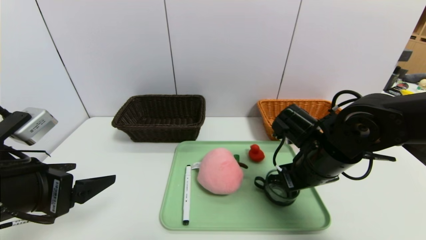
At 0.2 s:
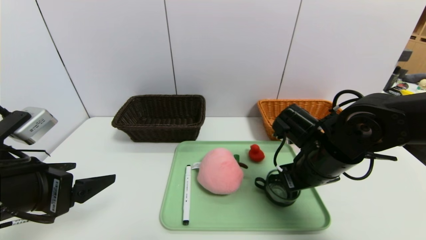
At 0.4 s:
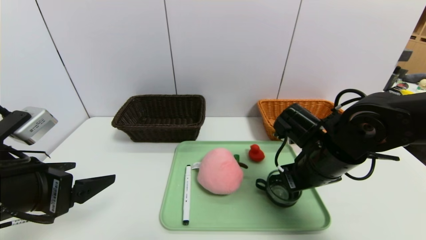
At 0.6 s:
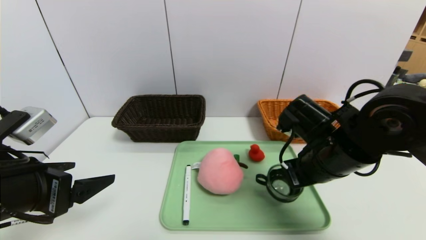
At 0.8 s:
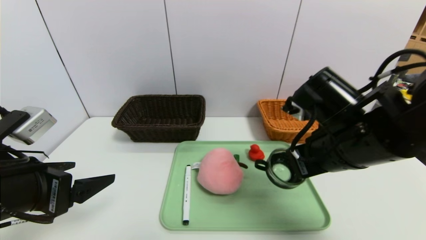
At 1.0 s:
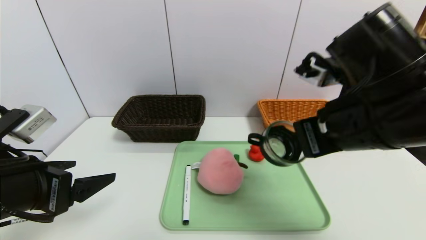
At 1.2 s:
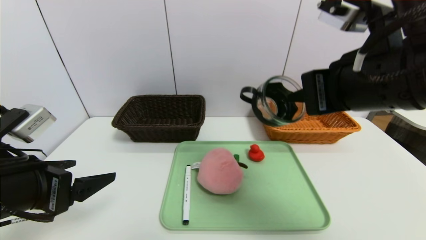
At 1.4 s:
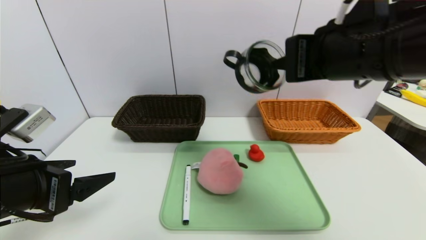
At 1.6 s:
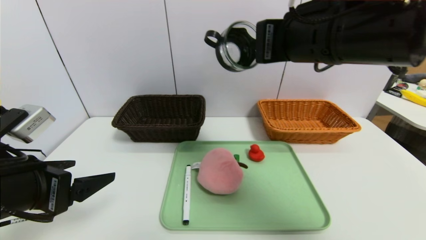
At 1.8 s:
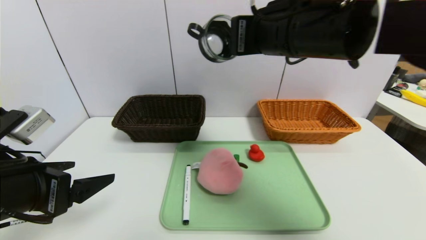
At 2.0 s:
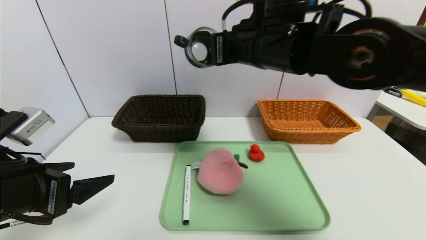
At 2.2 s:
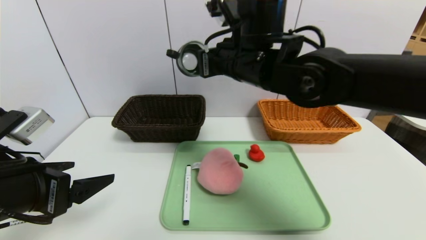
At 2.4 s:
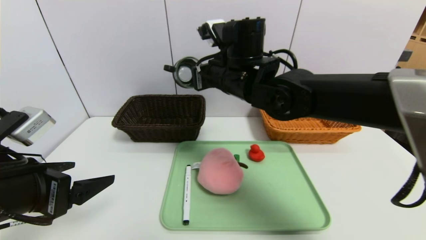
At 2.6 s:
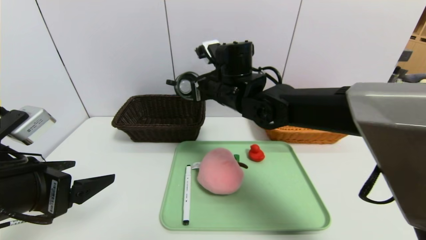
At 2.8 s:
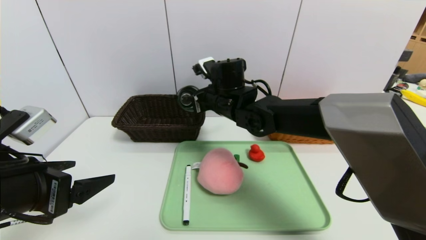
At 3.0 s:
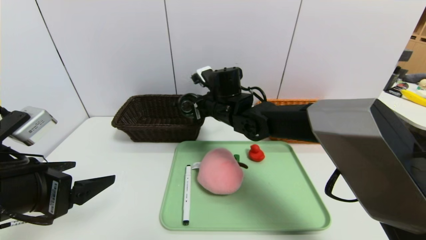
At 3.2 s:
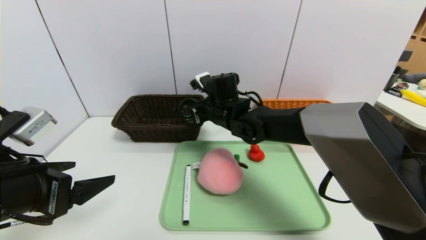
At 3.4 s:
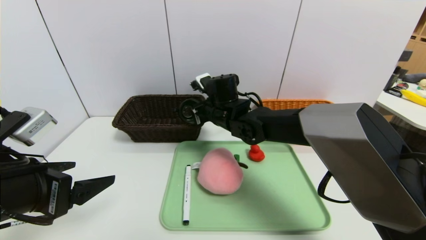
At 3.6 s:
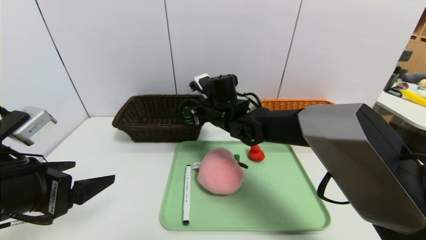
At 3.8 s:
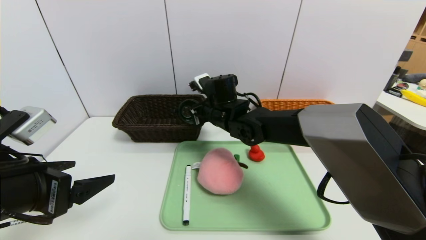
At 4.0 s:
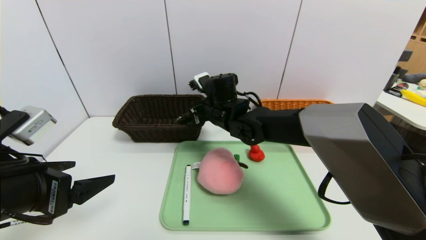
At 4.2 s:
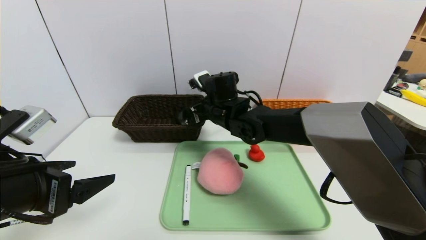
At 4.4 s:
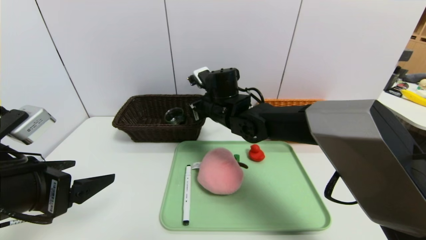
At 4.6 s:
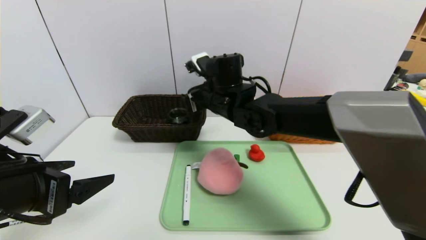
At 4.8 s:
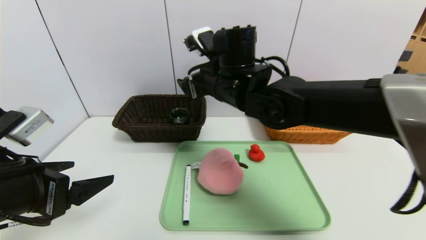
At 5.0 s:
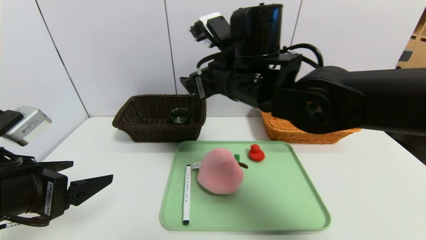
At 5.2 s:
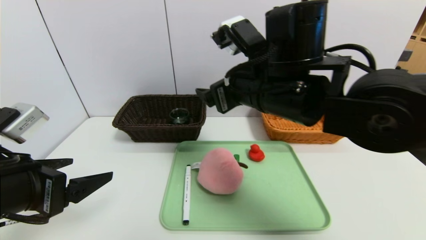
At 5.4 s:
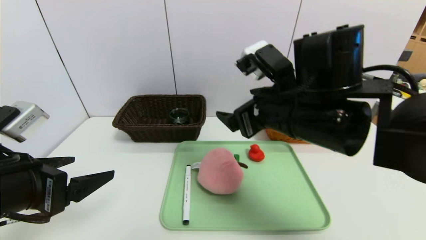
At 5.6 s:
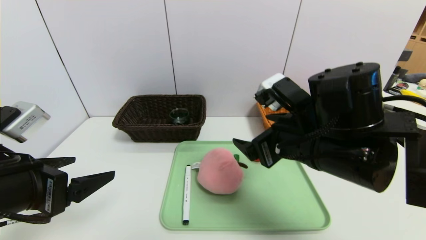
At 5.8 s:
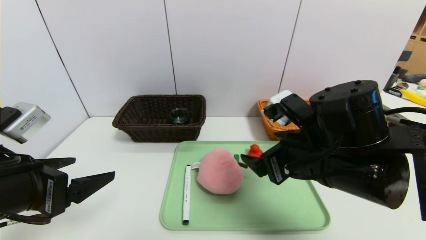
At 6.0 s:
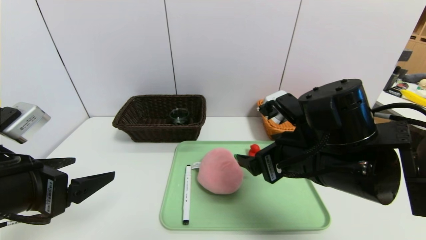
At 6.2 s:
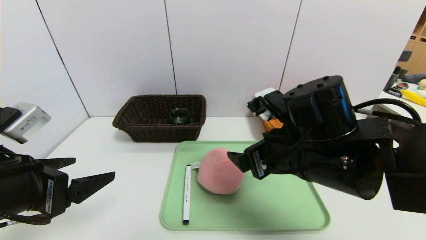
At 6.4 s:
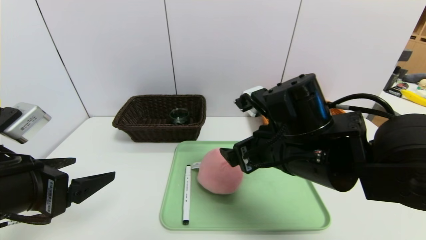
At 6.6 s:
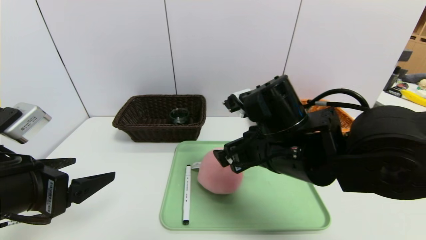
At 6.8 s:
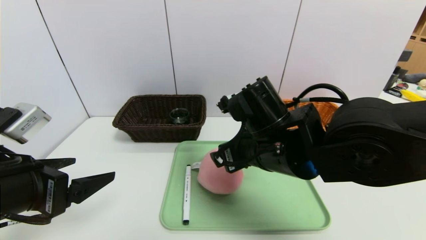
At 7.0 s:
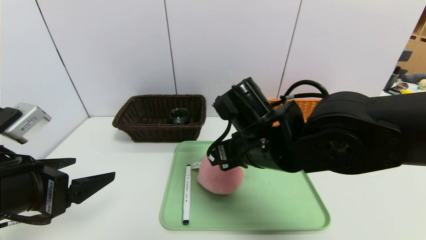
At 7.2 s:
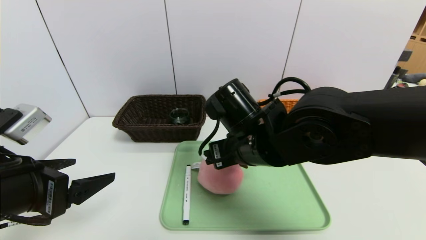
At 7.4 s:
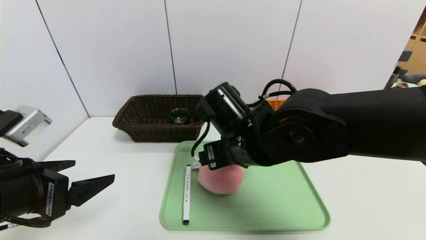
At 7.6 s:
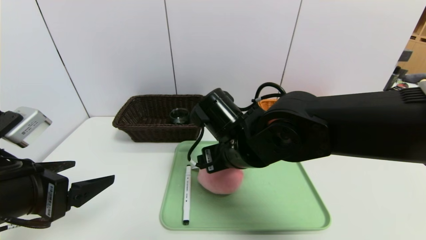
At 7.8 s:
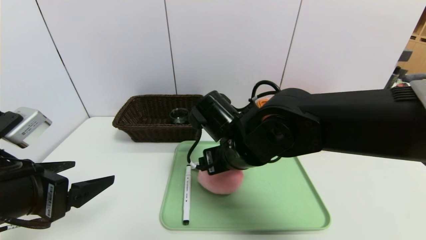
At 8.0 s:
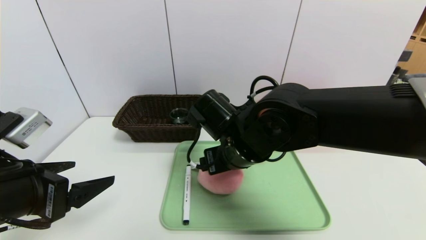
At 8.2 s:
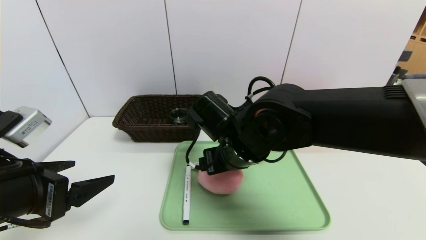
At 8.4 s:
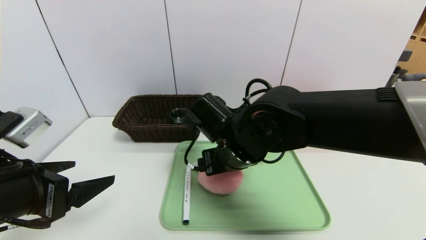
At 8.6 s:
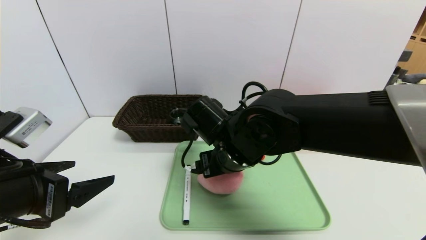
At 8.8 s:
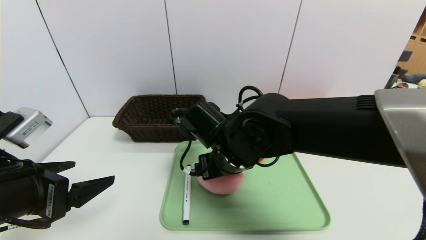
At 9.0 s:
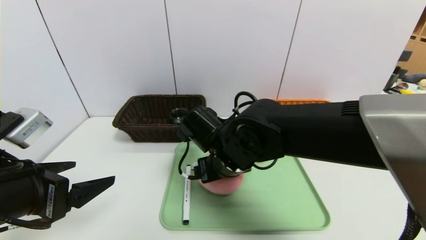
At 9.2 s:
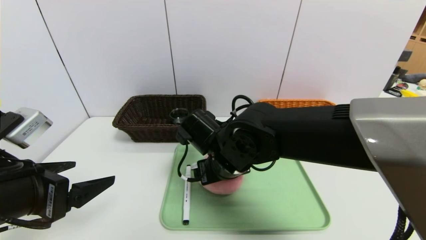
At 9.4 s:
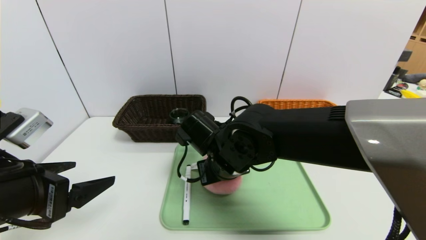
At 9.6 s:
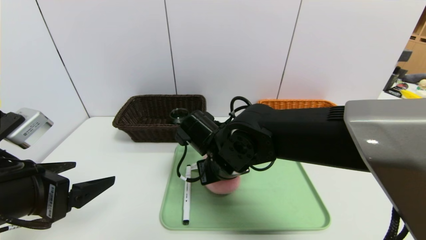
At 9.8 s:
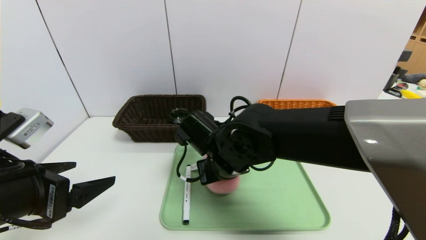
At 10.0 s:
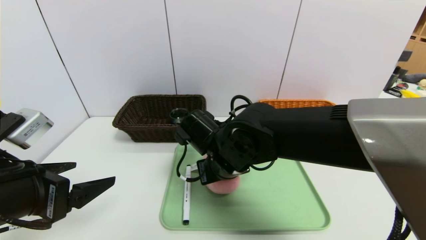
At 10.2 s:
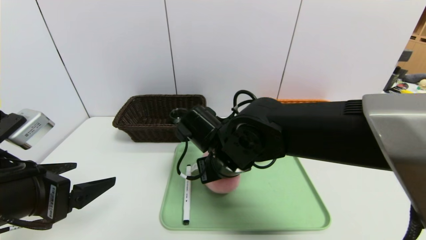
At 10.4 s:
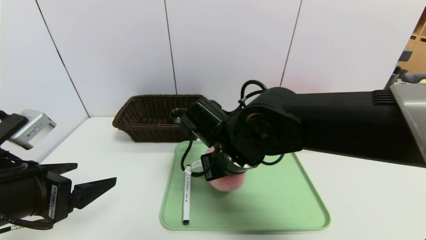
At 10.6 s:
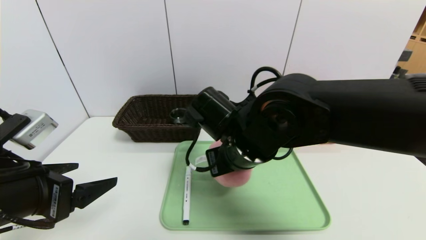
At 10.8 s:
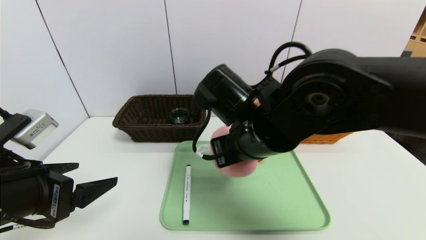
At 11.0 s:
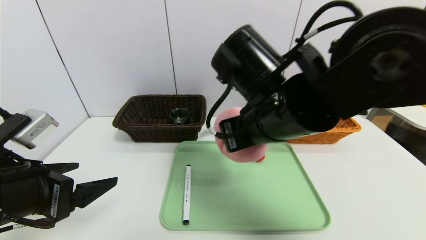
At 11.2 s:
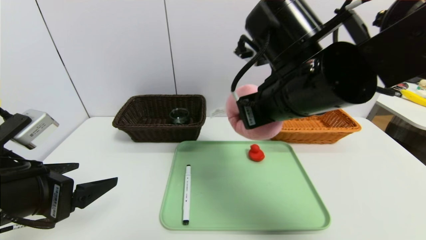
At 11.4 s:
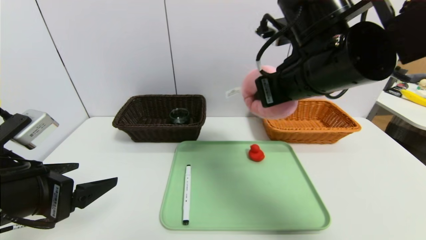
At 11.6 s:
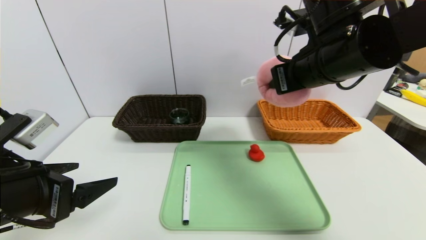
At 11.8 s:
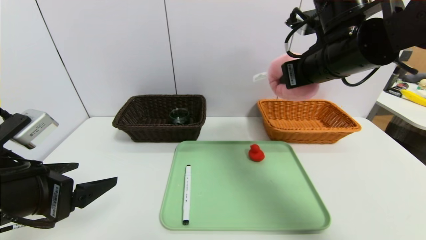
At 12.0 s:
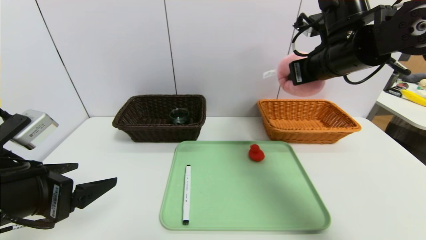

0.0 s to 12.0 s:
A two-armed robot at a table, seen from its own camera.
Task of the whole recording: place the food in the right basket with the right gripper, and place the non food items in the left basket with the left gripper.
0.0 to 1.6 s: The right gripper heads upward, covering about 20 cm.
1.6 to 3.0 s: The right gripper goes roughly 25 cm downward, forward and to the left.
3.0 to 4.4 s: The right gripper opens.
4.4 to 6.0 s: The right gripper travels backward and to the right by some 25 cm.
6.0 to 7.6 s: The right gripper travels to the left and forward by about 10 cm.
7.6 to 9.0 s: The grippers move only a little.
9.0 to 10.4 s: The right gripper closes.
10.4 to 12.0 s: The right gripper heads to the right, upward and forward, covering some 25 cm.

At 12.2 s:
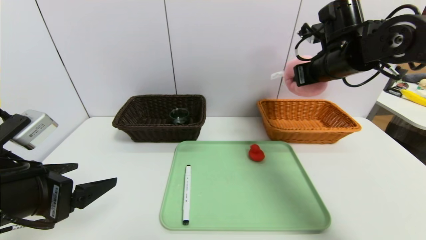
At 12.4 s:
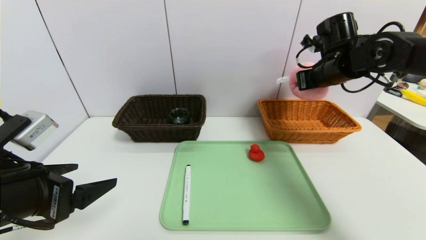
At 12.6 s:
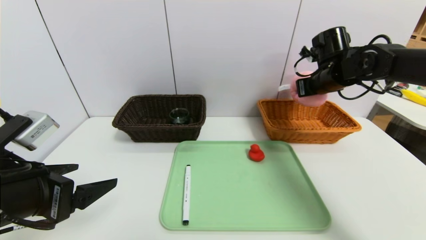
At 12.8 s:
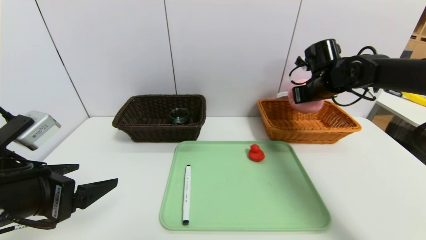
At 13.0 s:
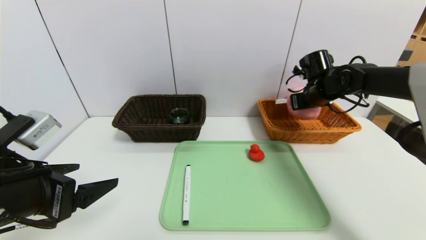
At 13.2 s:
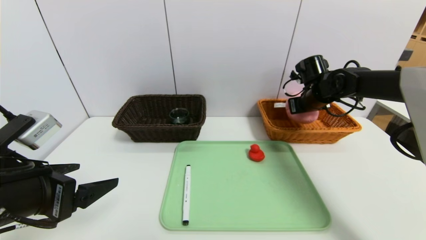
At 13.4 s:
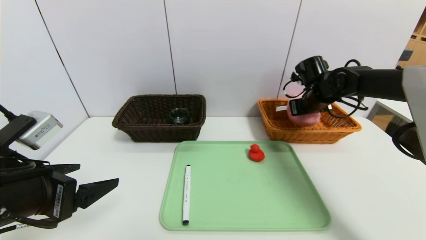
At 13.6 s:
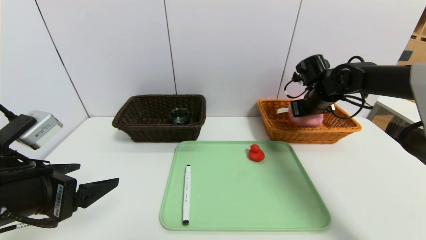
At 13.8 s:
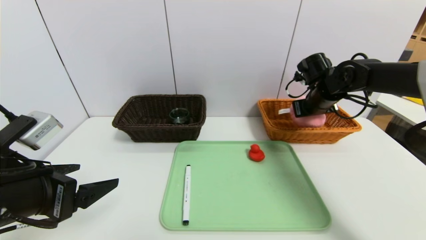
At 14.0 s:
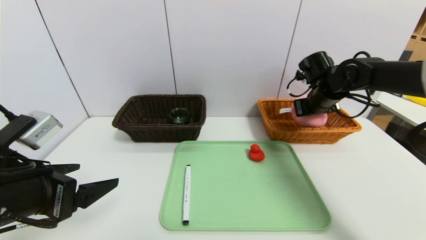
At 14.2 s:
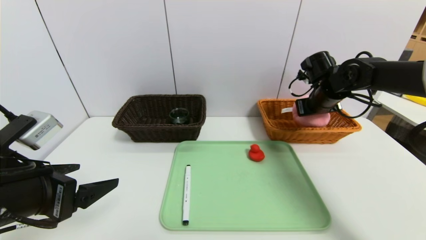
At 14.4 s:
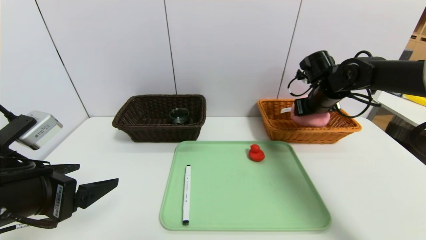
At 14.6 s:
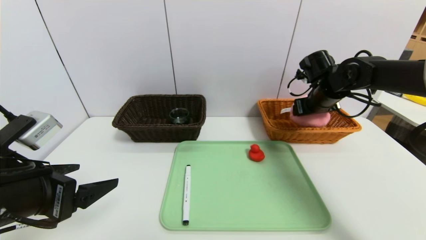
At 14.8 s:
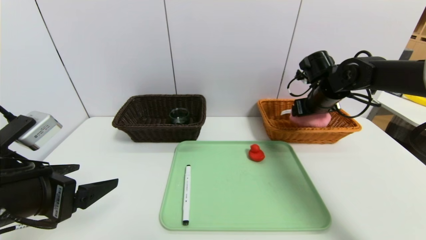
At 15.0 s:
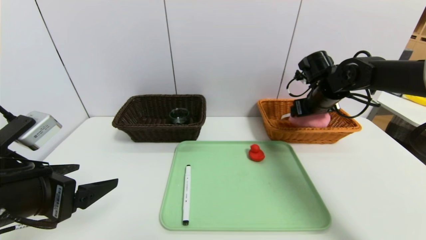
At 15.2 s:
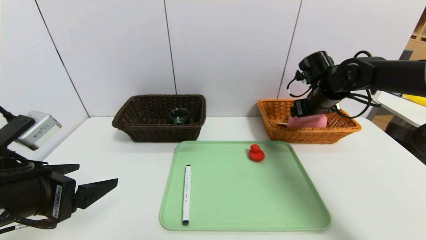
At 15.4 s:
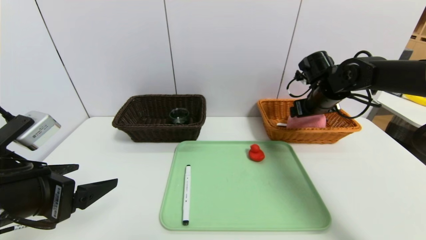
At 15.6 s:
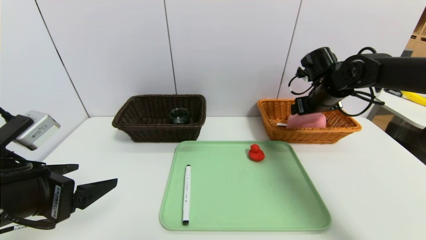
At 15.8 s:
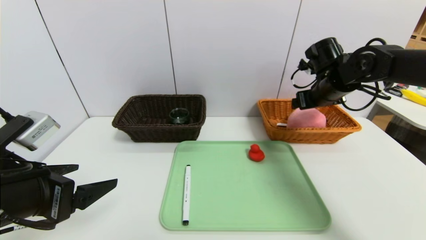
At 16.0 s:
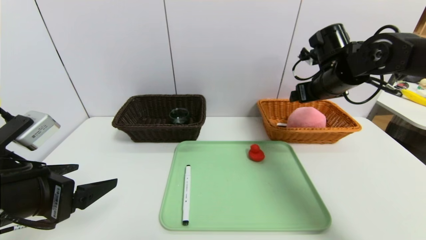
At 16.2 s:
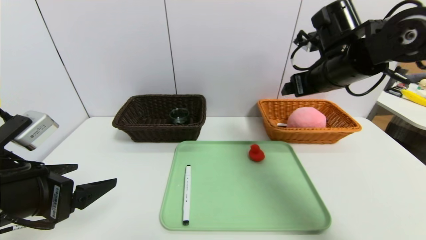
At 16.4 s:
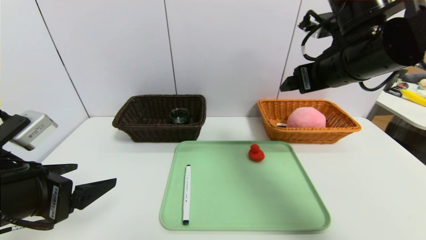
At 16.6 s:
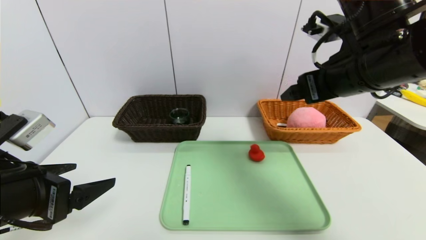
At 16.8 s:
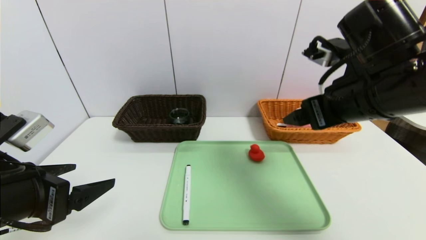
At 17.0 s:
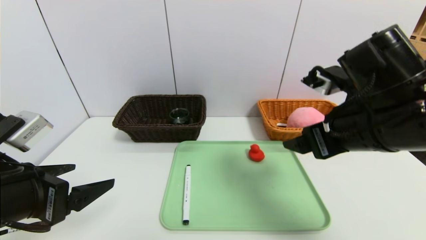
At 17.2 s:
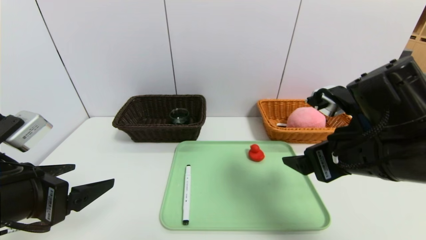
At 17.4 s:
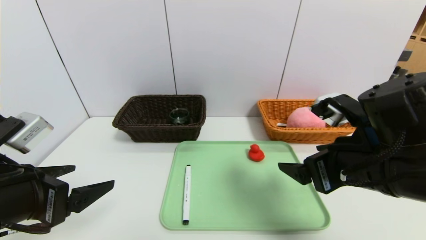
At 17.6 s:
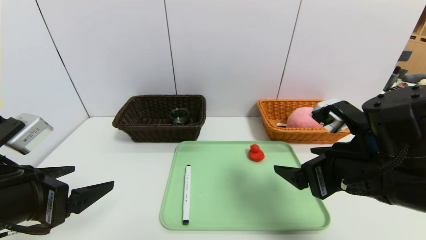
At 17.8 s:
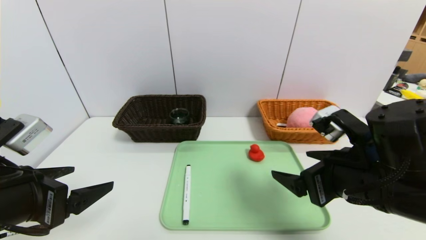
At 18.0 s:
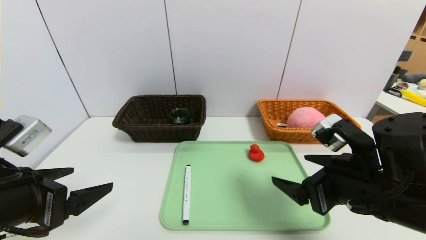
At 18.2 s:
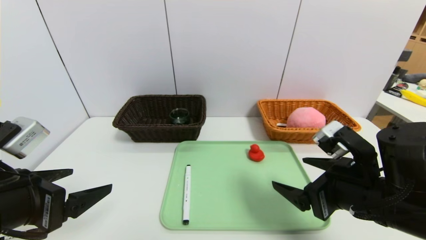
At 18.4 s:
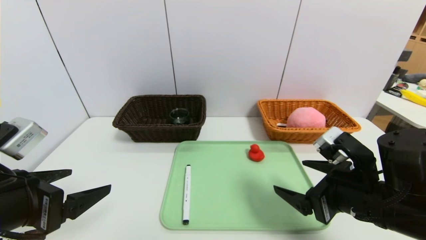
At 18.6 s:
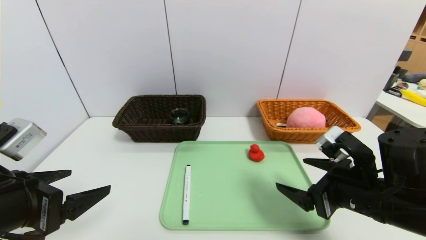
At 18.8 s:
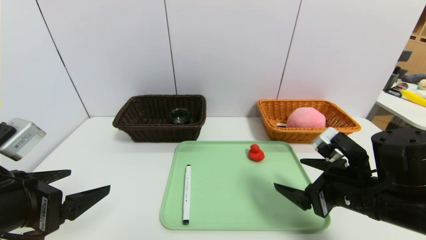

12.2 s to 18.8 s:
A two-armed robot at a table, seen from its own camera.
Task of the whole recording: place the food in the right basket with the right gripper, and place the non food items in the left basket with the left gripper.
Step, 12.2 to 16.0 s: Grasp the peach doll and put it in the right basket.
12.2 to 13.8 s: The right gripper goes roughly 10 cm downward and forward.
13.8 to 15.4 s: The right gripper opens up.
15.4 to 17.2 s: The right gripper goes some 25 cm backward.
17.2 to 18.8 s: The right gripper is displaced downward by about 10 cm.
